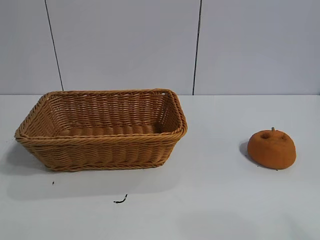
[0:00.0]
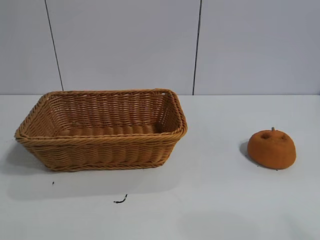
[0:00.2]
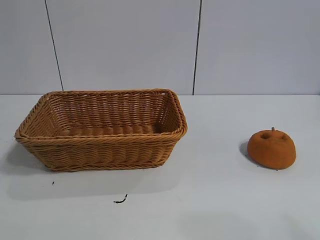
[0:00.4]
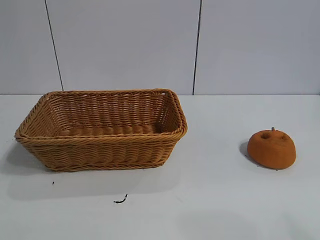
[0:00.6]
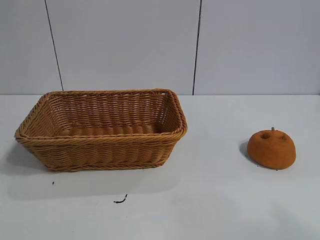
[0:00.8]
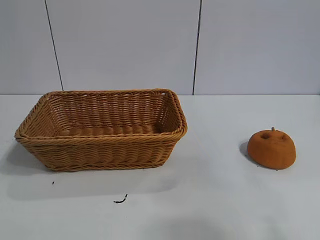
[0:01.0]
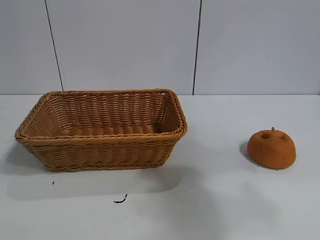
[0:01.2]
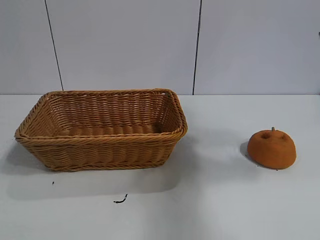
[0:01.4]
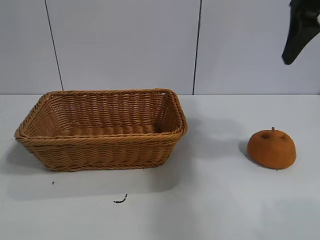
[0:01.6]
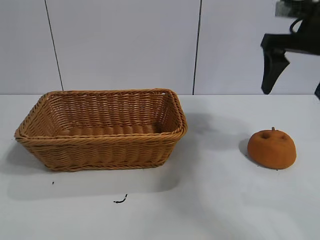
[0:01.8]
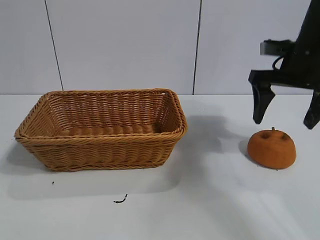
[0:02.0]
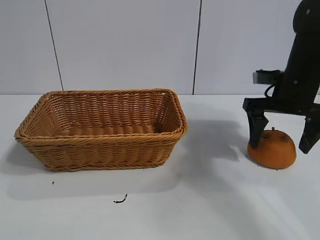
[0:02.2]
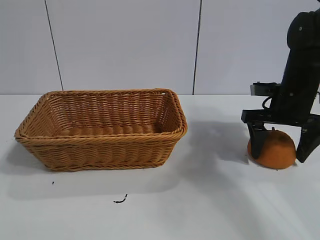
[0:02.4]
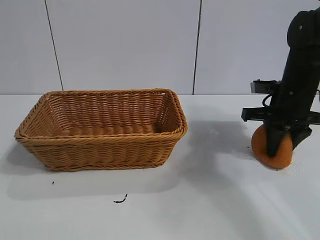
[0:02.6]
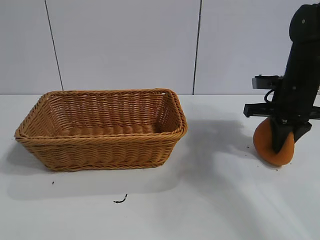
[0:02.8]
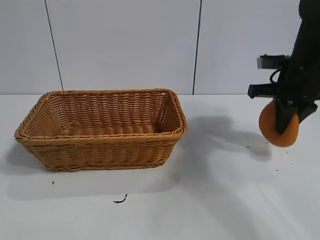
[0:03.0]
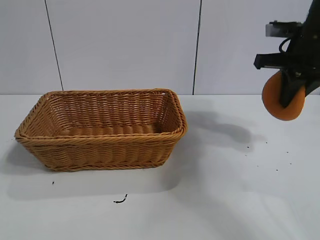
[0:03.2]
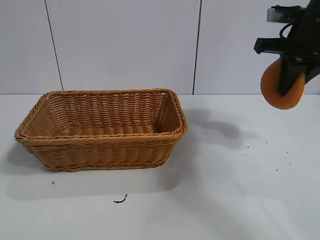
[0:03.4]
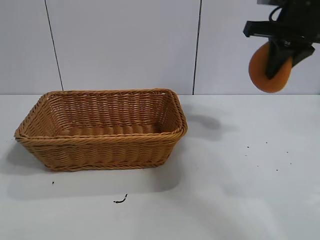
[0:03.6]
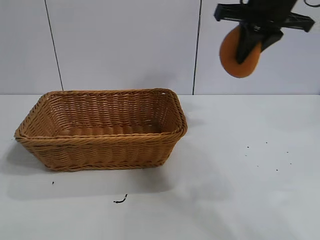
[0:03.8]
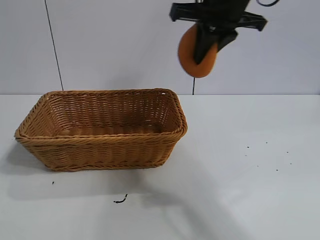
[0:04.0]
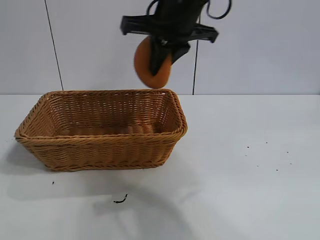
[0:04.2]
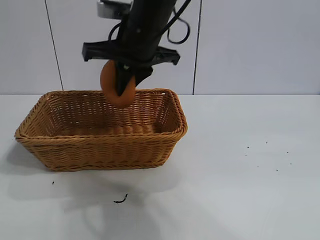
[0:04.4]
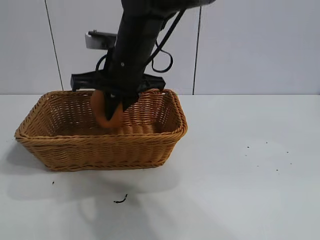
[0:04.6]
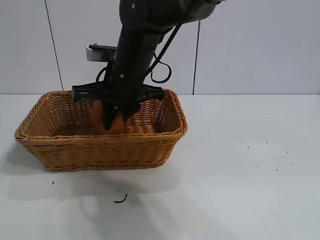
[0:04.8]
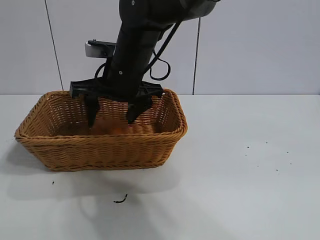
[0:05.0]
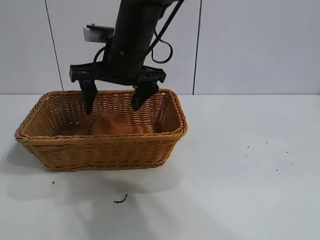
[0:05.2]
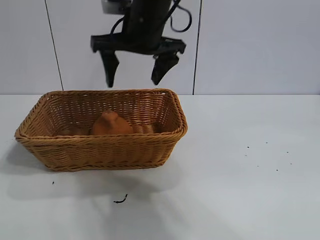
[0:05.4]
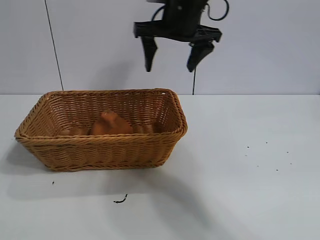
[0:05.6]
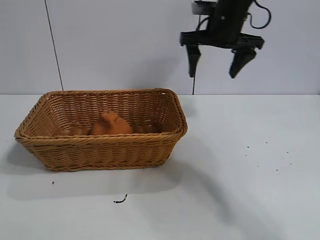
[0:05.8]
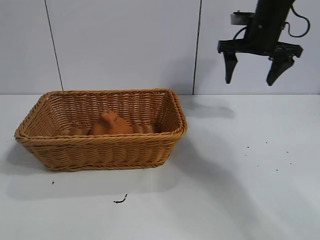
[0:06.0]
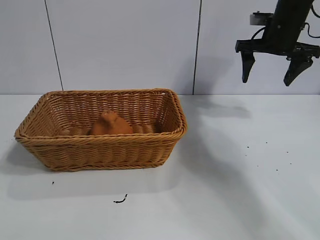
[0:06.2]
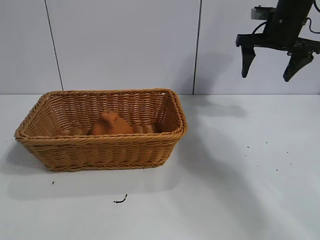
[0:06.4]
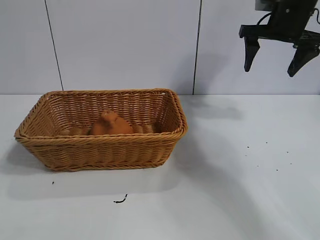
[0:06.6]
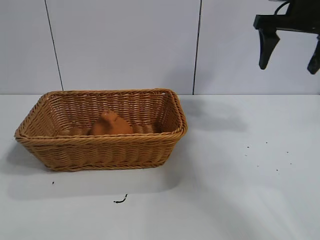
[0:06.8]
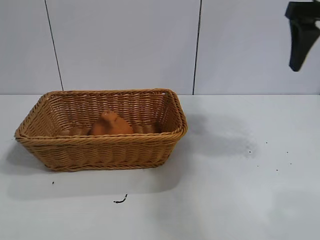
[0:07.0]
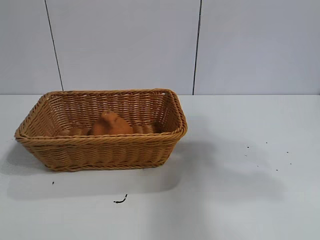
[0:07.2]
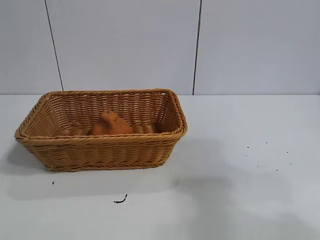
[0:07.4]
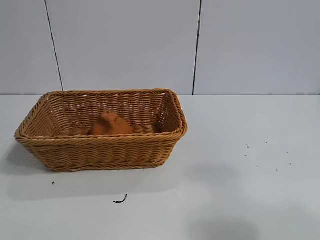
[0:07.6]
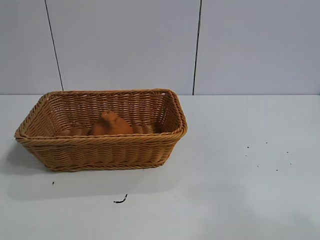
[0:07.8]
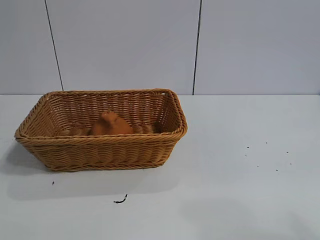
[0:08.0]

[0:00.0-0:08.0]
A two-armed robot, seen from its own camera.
Task of the whole recording: pick up the orange and put it into the basket.
Step, 0:00.8 to 0:02.6: Grasp the orange with right gripper.
Step, 0:02.8 to 0:05.0: Place the orange in the basket with right gripper.

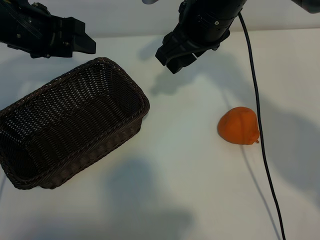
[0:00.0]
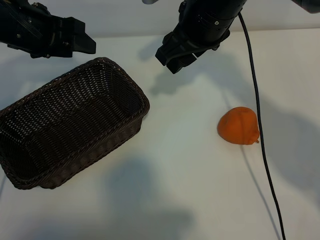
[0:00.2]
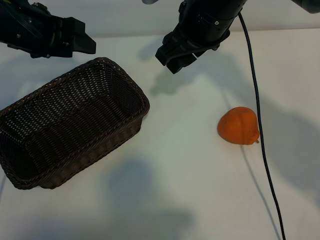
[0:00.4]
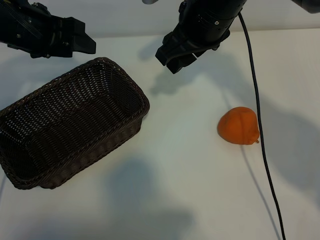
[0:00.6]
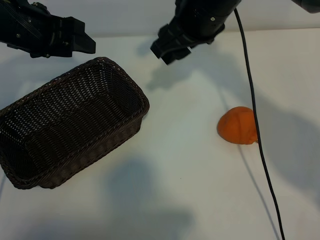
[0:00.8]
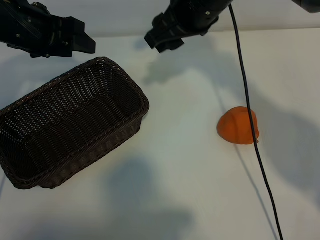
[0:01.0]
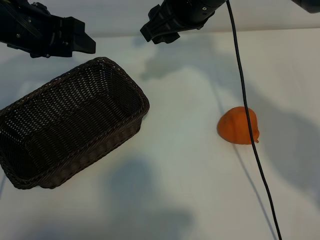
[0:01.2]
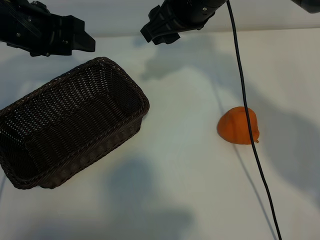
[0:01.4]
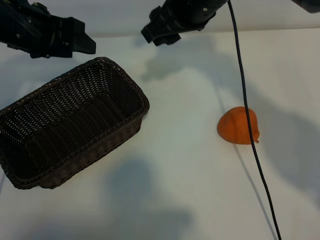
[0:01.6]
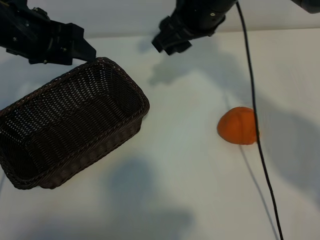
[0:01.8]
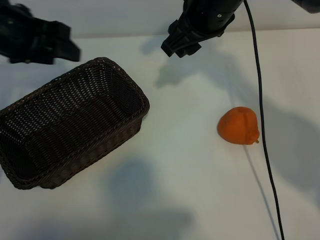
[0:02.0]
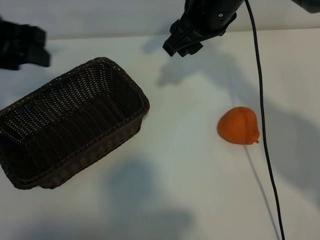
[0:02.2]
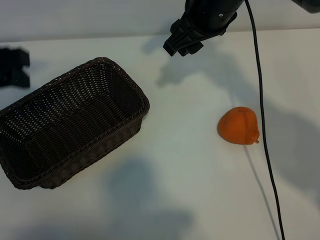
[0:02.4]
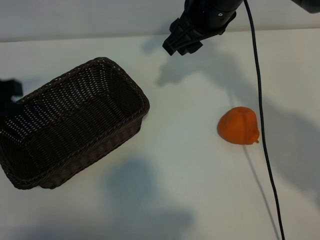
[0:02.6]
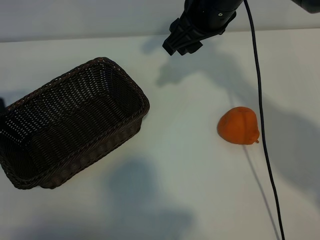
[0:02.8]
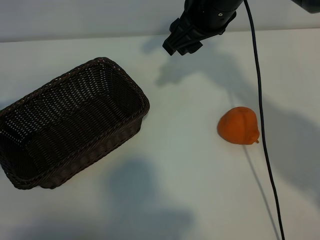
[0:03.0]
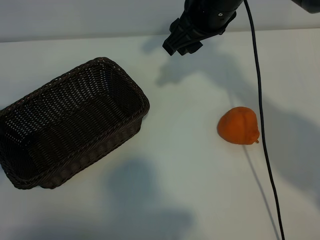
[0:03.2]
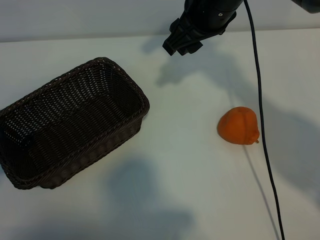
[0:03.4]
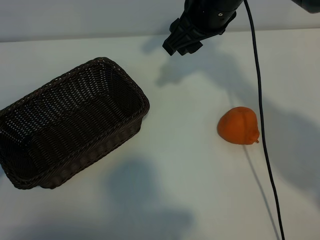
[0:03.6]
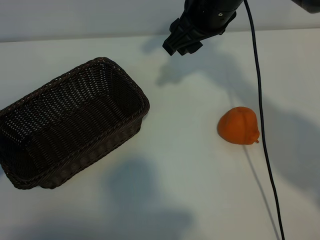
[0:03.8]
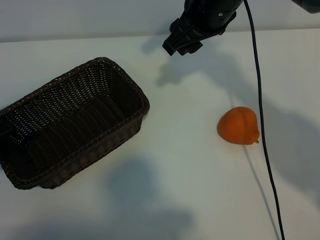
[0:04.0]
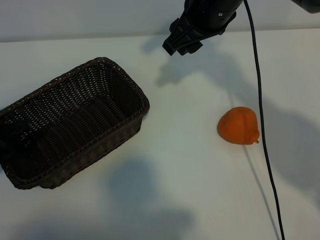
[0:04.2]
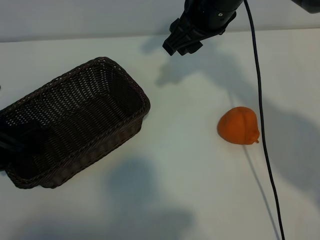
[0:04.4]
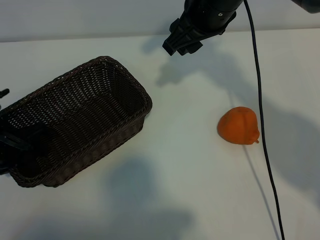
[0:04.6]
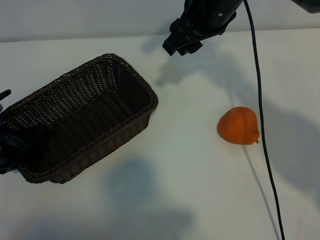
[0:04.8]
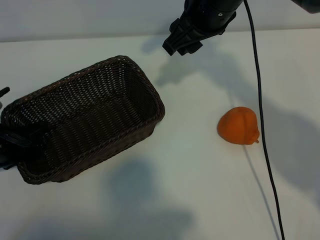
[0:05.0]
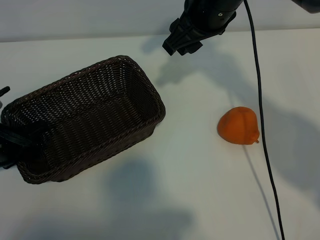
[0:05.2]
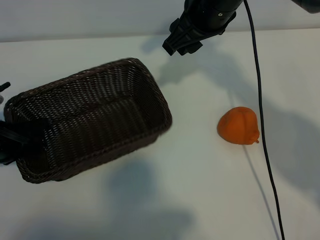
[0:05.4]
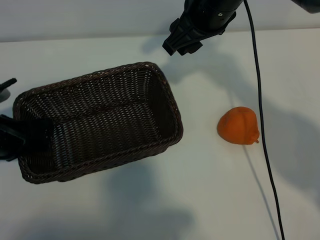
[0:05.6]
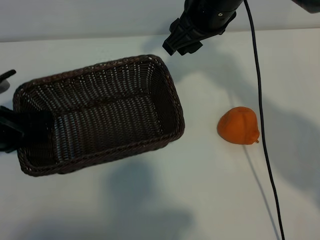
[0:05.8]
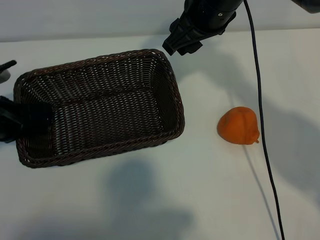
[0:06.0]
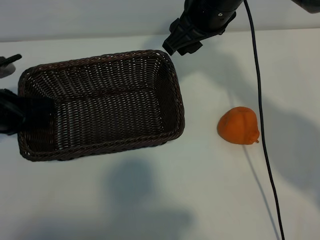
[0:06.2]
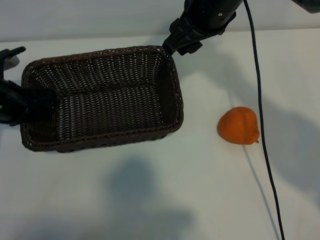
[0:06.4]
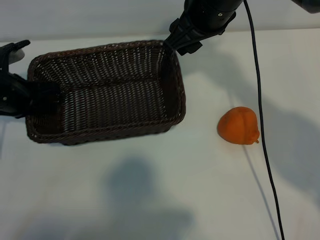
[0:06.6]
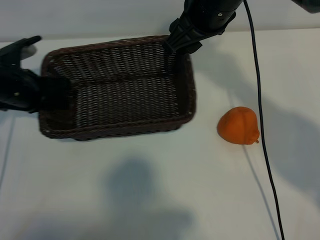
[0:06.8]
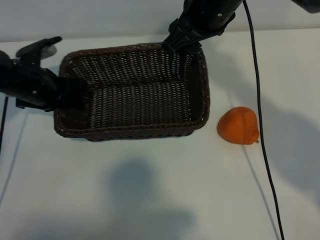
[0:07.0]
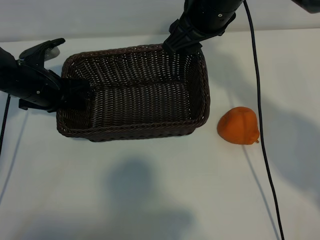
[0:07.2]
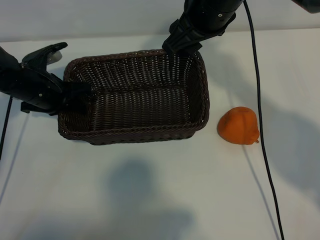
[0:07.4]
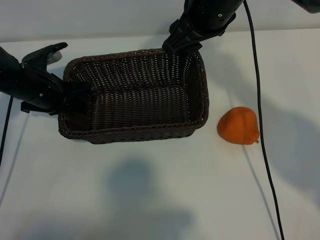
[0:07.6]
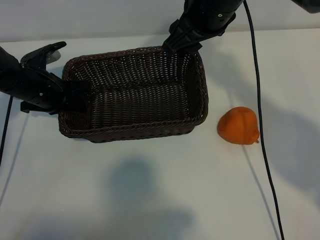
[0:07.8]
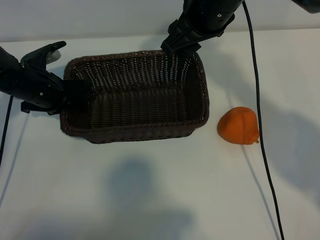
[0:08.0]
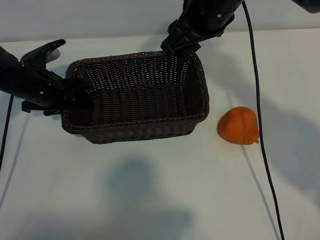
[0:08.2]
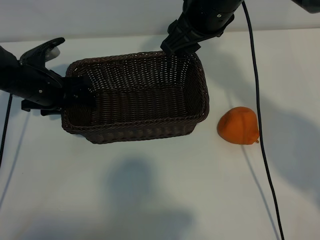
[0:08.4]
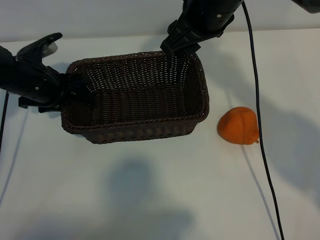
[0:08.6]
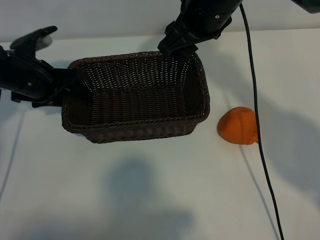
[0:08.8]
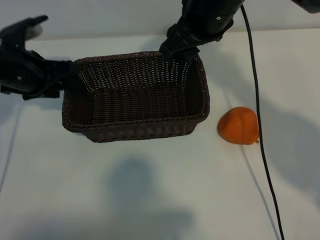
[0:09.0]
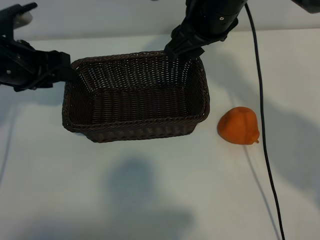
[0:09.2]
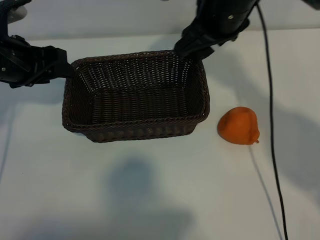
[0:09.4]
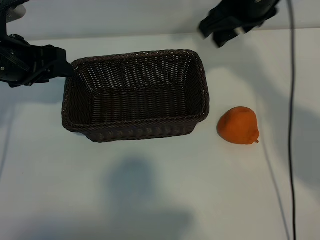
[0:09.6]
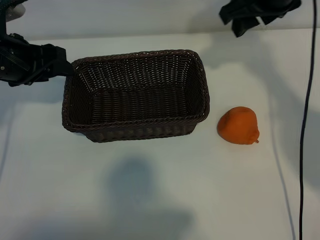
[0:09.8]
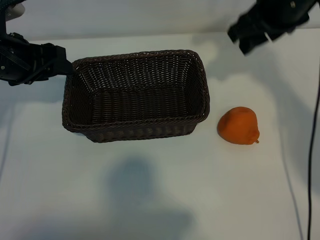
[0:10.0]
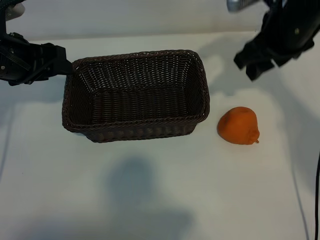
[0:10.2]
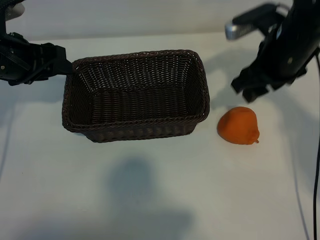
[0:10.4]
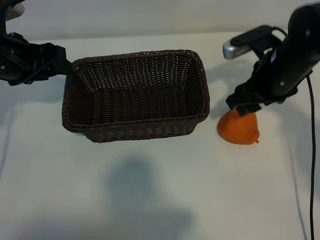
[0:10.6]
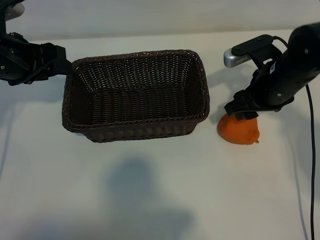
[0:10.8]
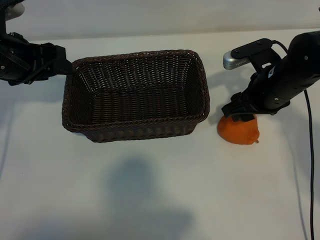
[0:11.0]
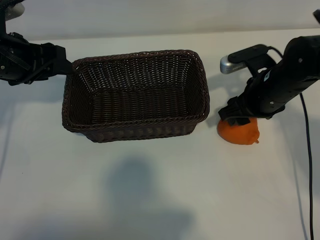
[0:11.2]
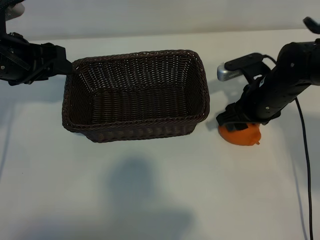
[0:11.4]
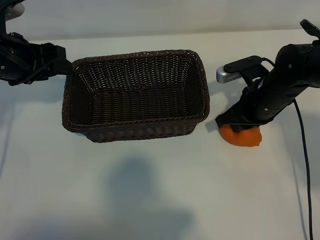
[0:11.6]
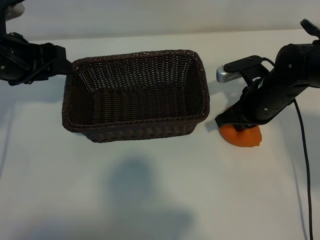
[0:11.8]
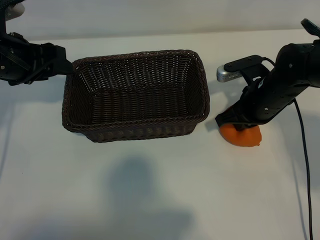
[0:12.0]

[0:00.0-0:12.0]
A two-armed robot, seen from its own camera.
Task of the whole recording: pick up the orange and put it into the basket.
Step, 0:00.8 to 0:04.8: Grasp the basket with left gripper.
Step, 0:05.0 to 0:08.2: Place the basket in the center of view with left gripper.
Step, 0:08.4 to 0:11.6: Grasp the orange with right gripper.

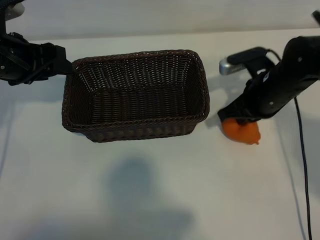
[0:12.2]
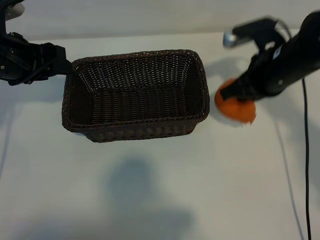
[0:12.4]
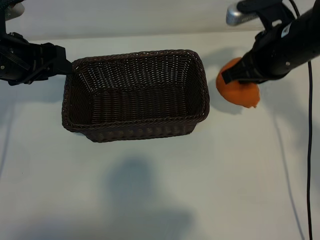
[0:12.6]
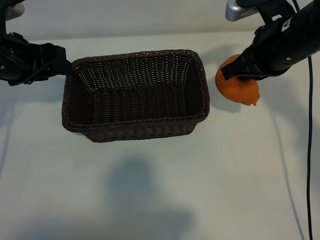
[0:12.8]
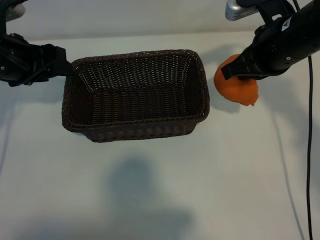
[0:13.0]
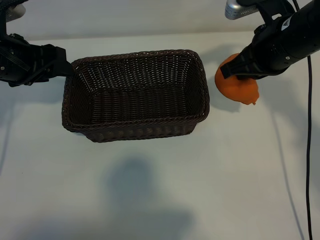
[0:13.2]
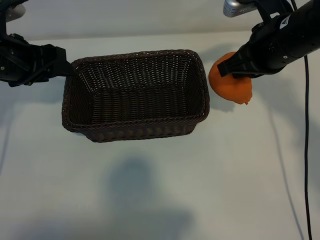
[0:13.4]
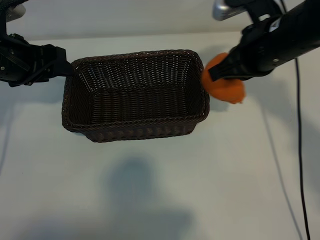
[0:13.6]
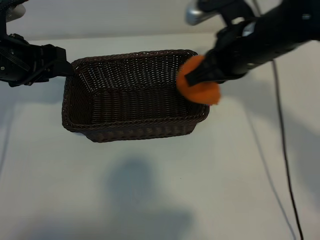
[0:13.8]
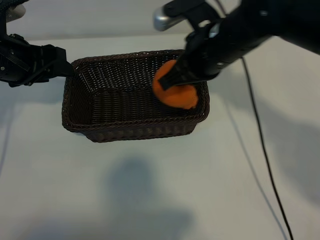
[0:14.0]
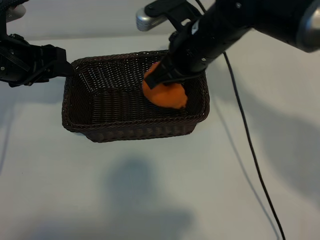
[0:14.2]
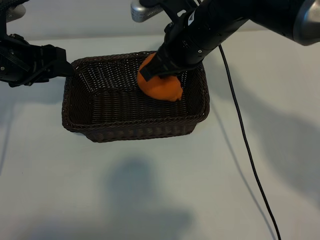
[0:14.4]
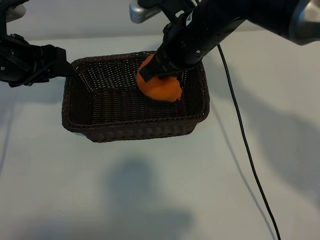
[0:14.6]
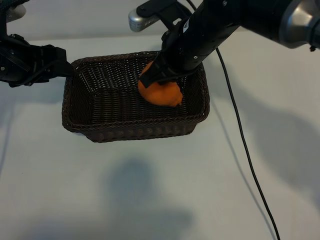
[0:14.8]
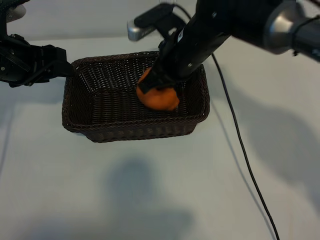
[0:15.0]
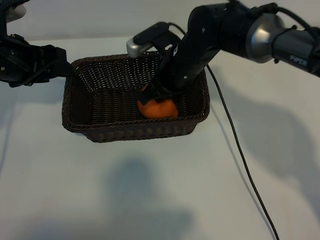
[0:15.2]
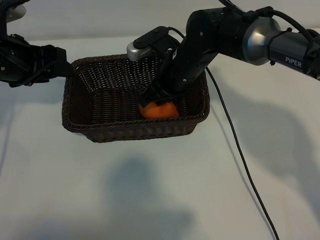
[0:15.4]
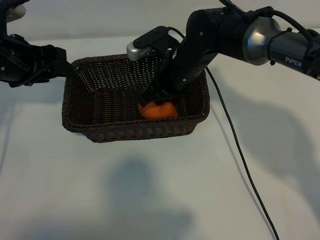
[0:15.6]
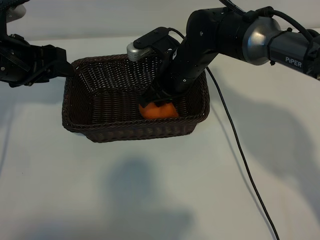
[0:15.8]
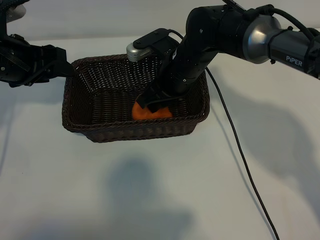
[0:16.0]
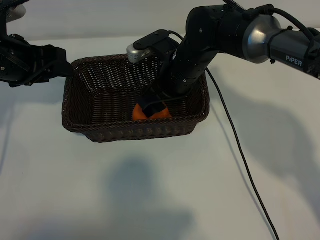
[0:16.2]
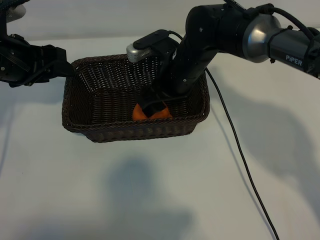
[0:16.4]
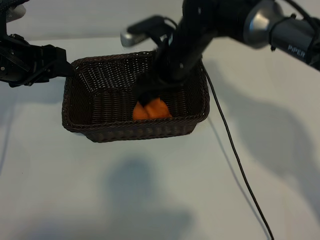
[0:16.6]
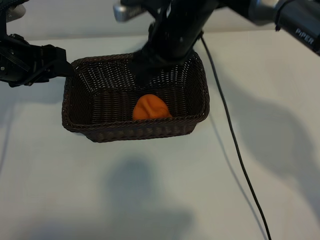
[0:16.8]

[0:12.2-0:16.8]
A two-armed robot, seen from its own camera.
Task of the whole recording: pick up the orange and put it into the basket.
Step, 0:12.2 to 0:16.0: Place the orange in the basket with right gripper.
